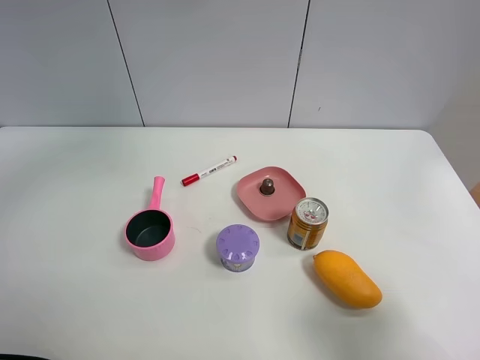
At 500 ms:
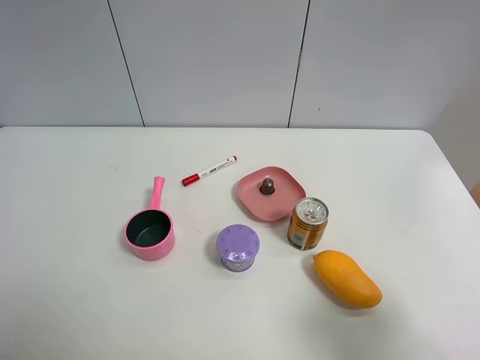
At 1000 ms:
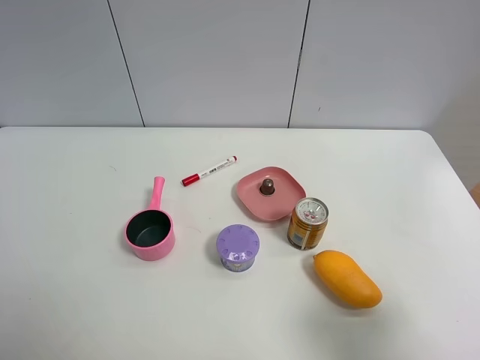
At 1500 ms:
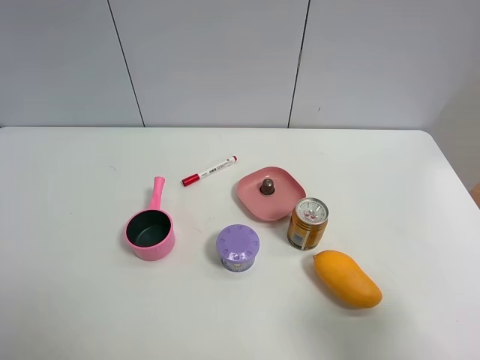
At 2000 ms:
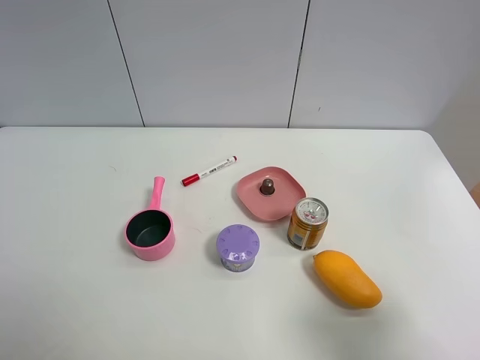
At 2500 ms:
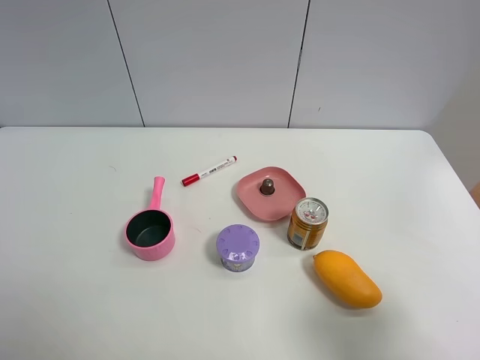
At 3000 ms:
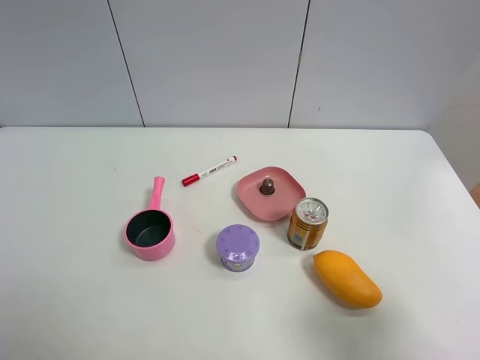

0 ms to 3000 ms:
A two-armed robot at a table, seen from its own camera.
Task of the whole recording: the gripper move the object.
0 ms to 1500 ms: The left gripper heads backward and to the left, covering roughly 40 cm.

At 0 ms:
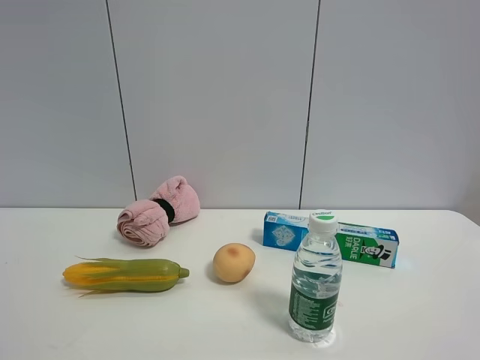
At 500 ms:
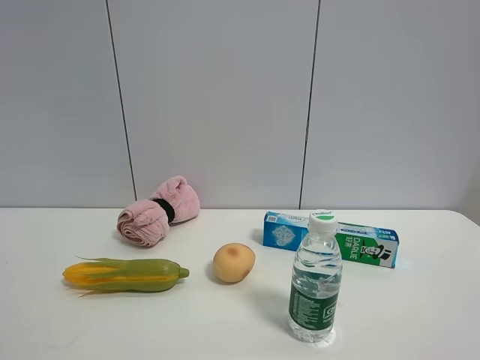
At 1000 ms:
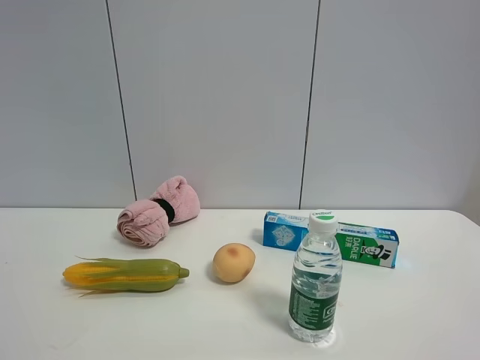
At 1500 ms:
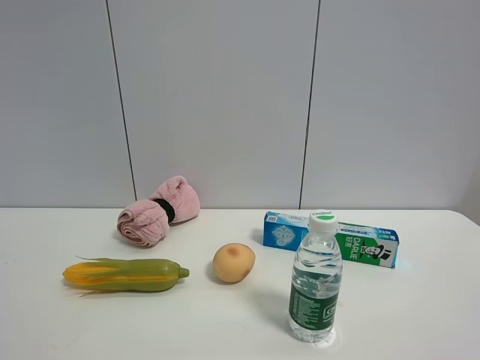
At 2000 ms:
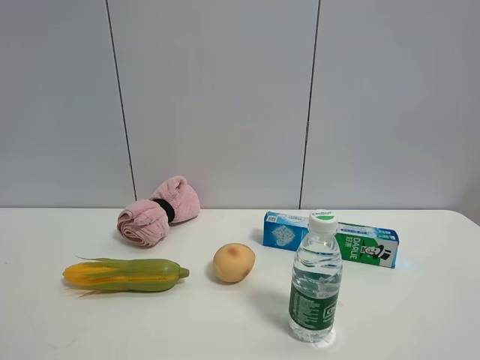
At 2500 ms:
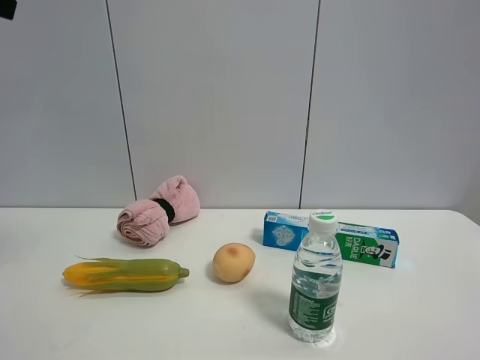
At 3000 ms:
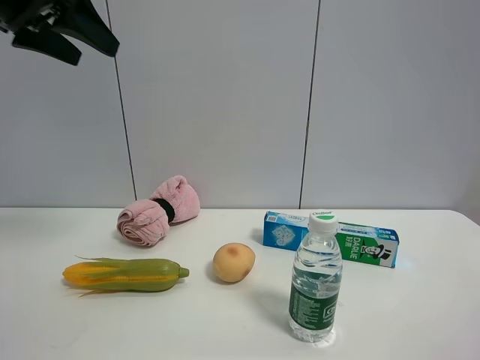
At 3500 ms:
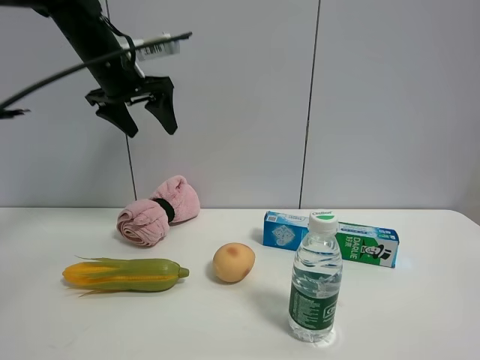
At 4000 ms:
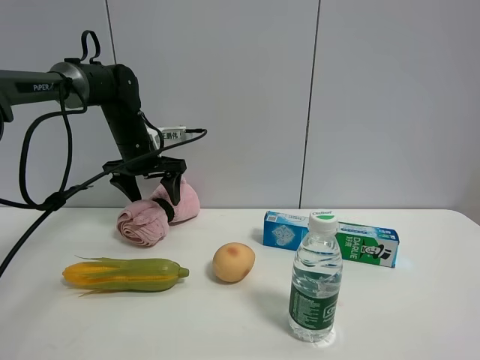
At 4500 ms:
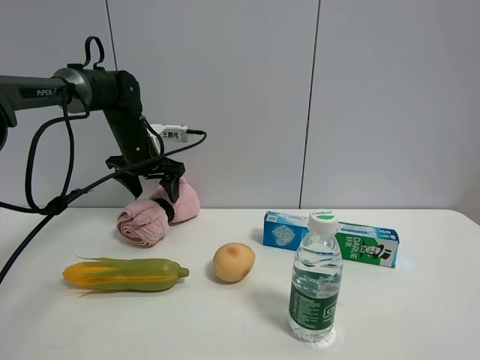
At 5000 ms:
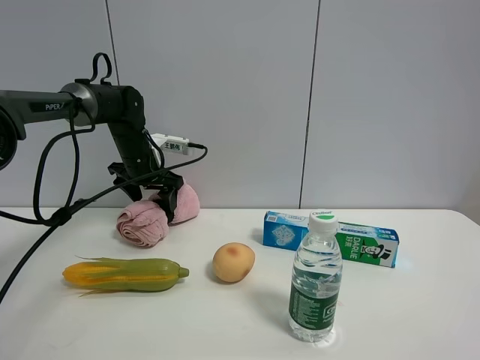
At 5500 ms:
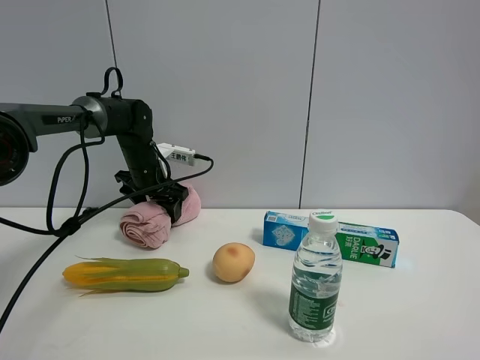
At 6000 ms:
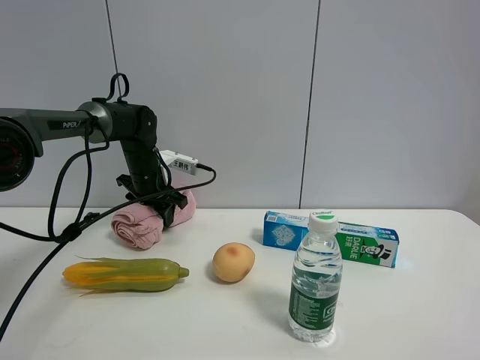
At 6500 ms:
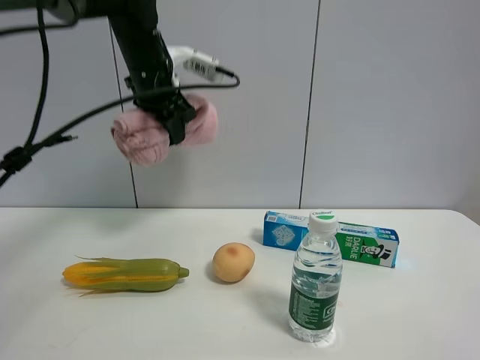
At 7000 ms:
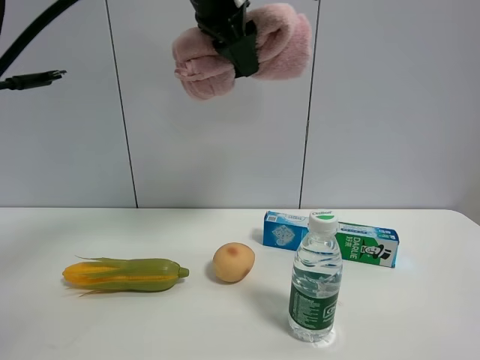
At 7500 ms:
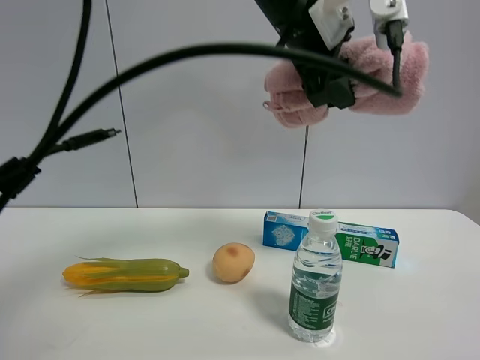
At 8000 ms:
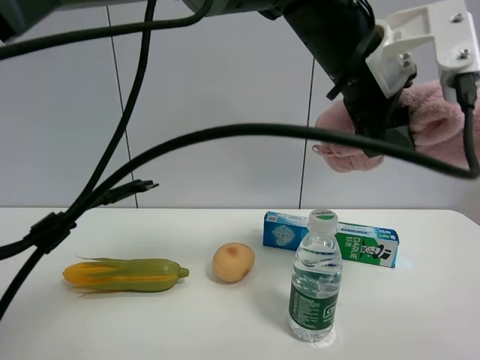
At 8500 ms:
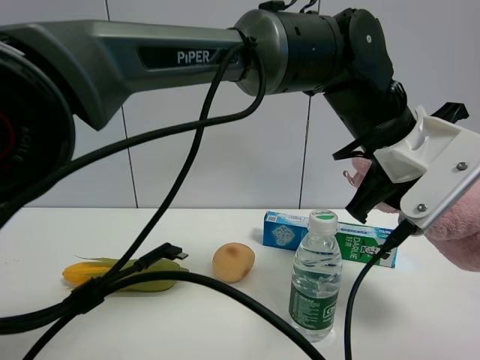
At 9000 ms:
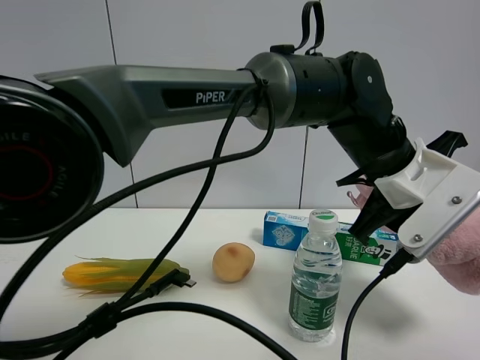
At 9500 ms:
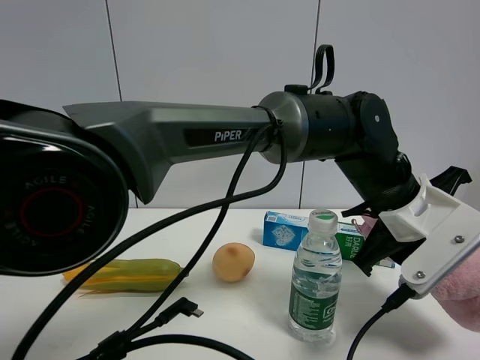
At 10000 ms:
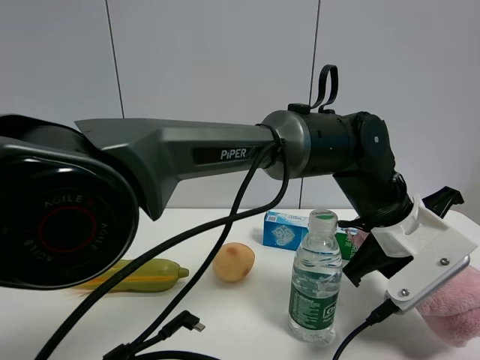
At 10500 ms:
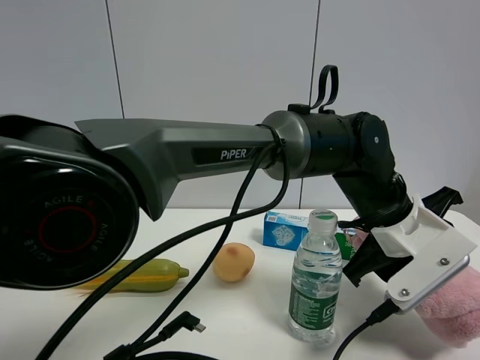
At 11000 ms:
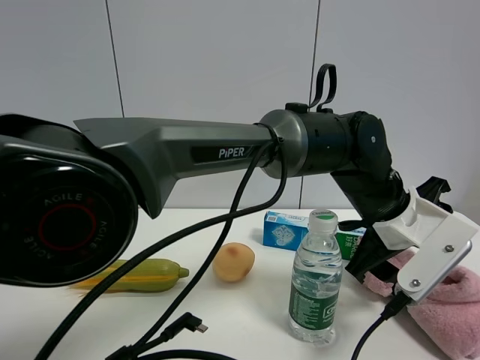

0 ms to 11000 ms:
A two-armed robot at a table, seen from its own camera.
Task of the whole recording: the gripper move the object.
Step, 0 ms to 6000 ms: Grasp the pink towel with the left gripper.
Step, 6500 ms to 10500 ms: Place the pink towel on the table with the left gripper.
2000 ms to 3500 ms: The left gripper travels forward by some 40 cm.
3500 ms to 5500 ms: The left gripper moves downward, approximately 15 cm.
5500 ms to 7500 ms: The left gripper is displaced to the right, upward and backward by roughly 40 cm, and closes up.
7500 ms to 9000 ms: The left gripper travels downward and to the right by roughly 15 cm.
9000 ms to 11000 ms: The left gripper goes about 5 cm downward, and opens its fingers.

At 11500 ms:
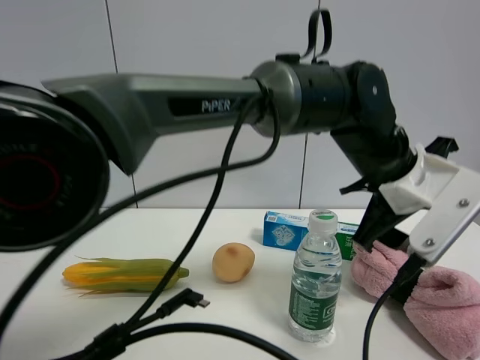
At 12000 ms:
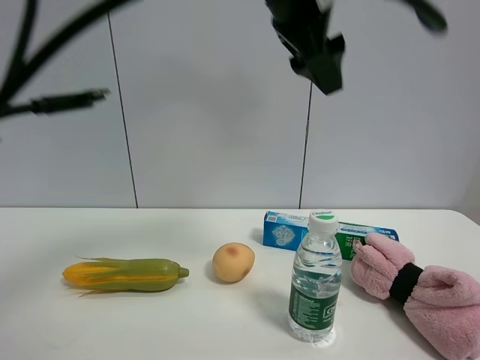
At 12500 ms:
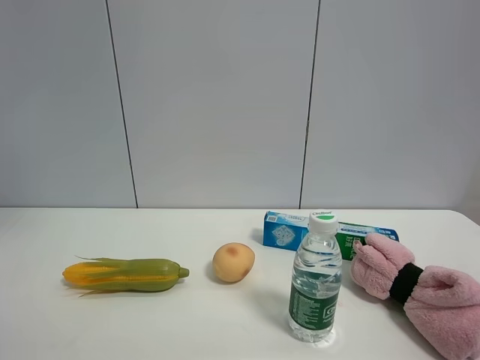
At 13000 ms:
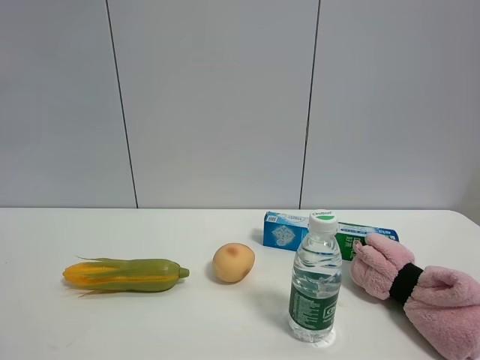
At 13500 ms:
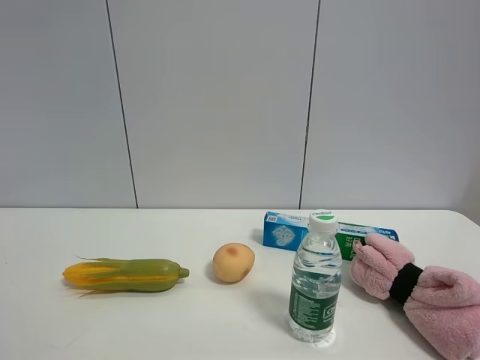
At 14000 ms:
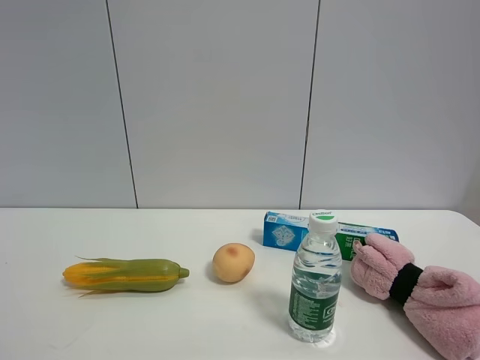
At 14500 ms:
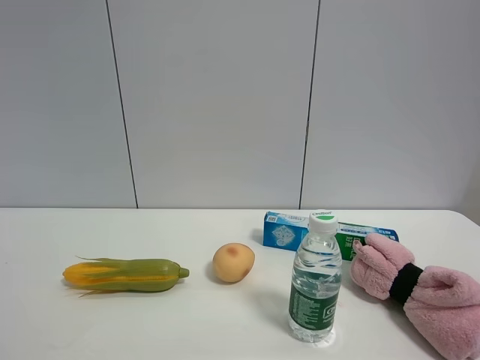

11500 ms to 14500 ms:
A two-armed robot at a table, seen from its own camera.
Task of the whole recording: the gripper move the object.
11500 ms to 13000 ms: The left gripper travels to the left, upward and backward by roughly 60 cm.

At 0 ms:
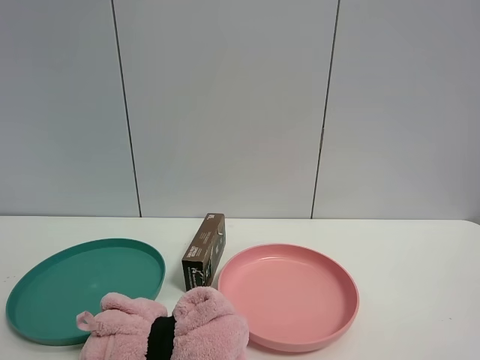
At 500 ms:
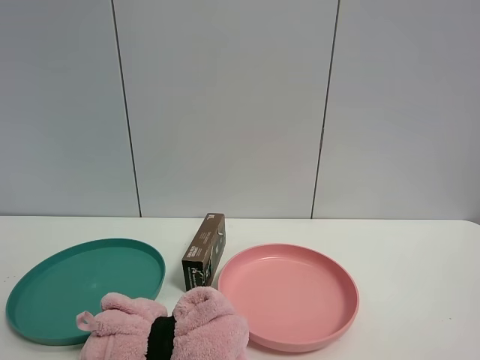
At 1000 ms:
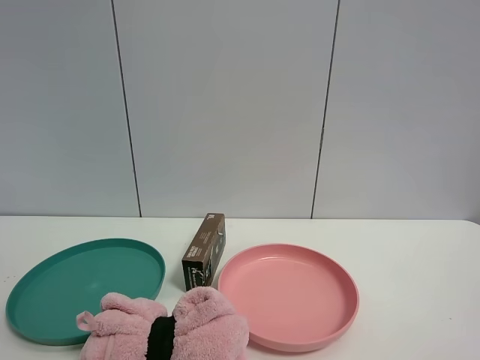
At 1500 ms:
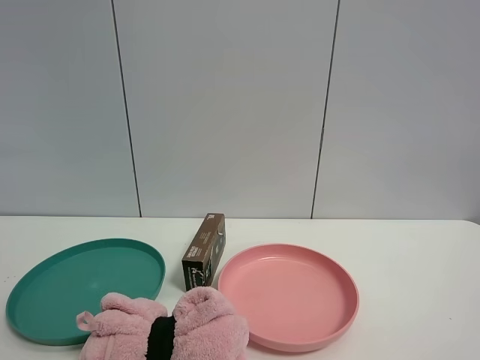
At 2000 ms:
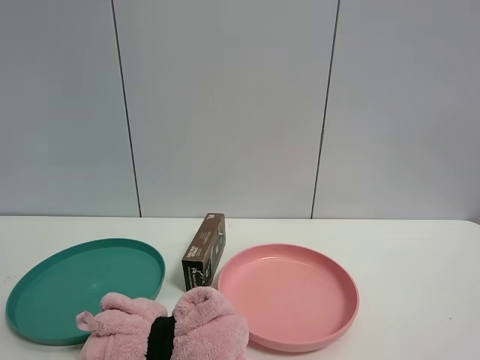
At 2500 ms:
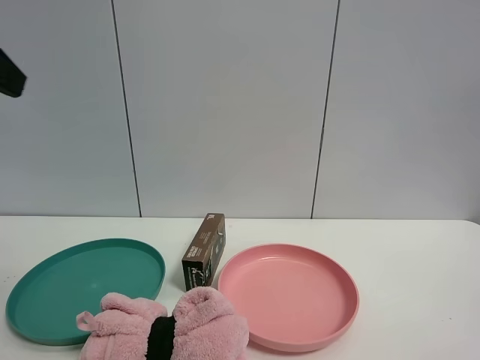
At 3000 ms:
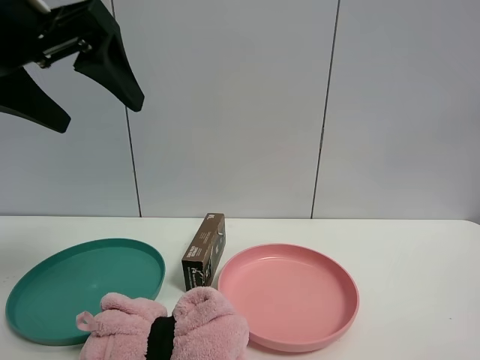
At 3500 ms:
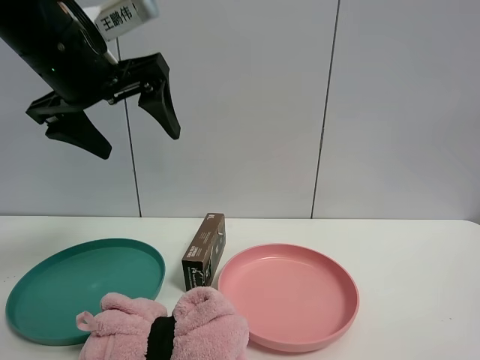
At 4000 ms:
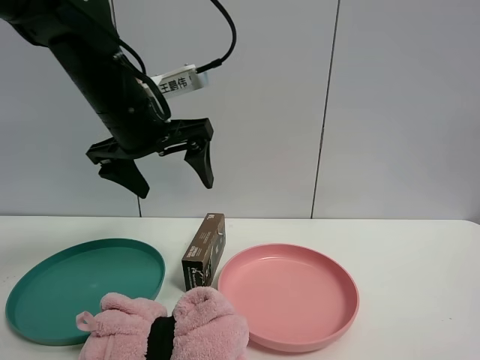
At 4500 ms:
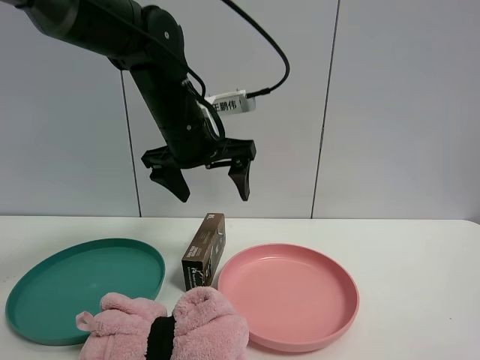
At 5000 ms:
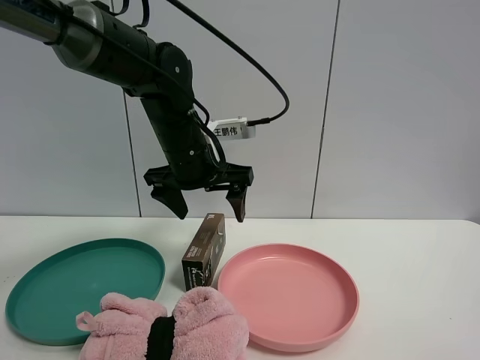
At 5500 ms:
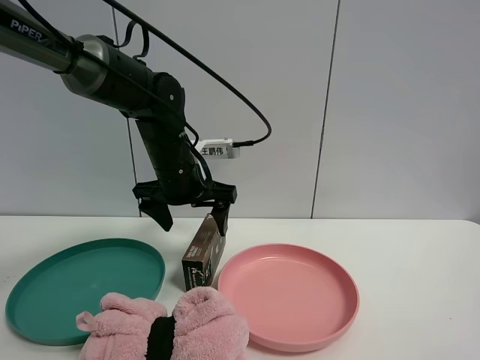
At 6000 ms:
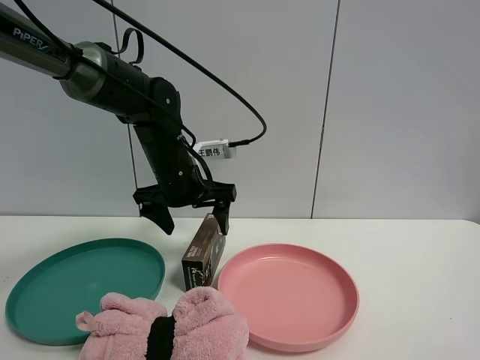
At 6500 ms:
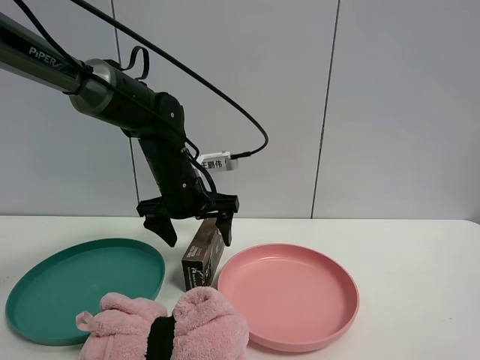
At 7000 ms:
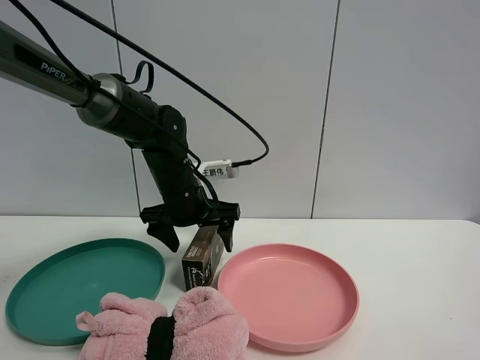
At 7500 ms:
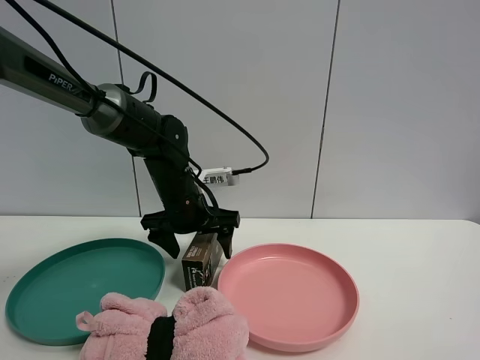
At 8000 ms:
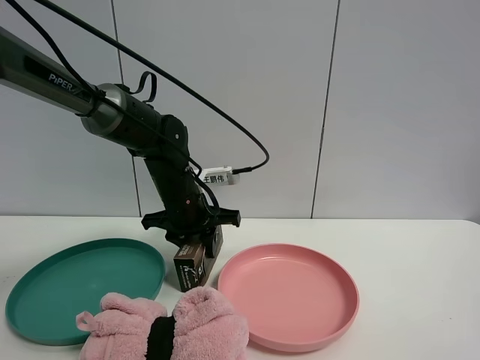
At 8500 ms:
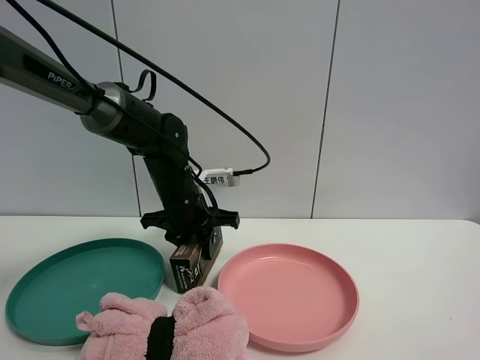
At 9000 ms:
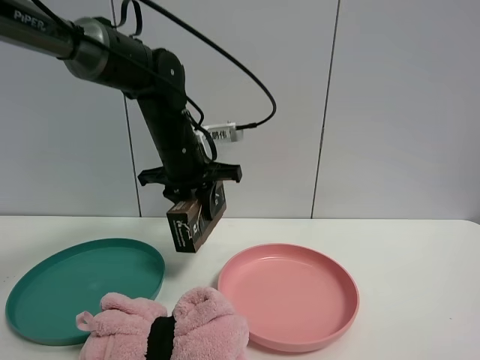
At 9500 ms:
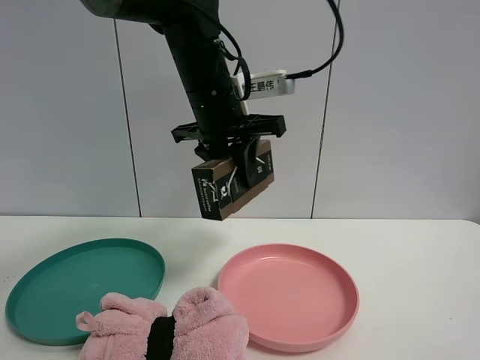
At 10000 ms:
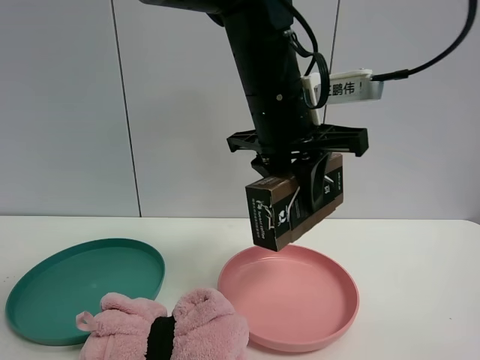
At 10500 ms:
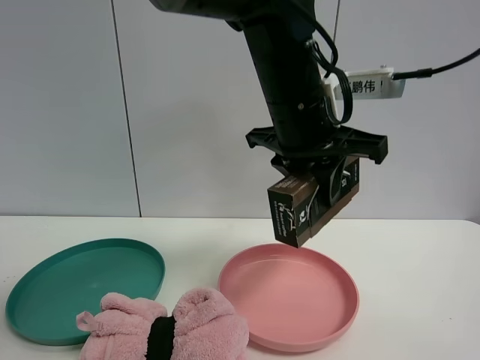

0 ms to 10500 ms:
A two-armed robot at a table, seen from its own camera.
Task of the whole recording: the gripper move the object.
Step, 0 ms to 7500 ms: Grasp the Luckin Coffee box with the left gripper.
2000 ms to 4000 ms: The left gripper goes roughly 30 cm forward and to the right.
4000 ms to 6500 ms: The left gripper travels downward and forward by roughly 15 cm.
6500 ms to 8500 ms: The left gripper closes.
8500 ms to 10500 ms: The left gripper shifts some 25 cm to the right, upward and backward.
